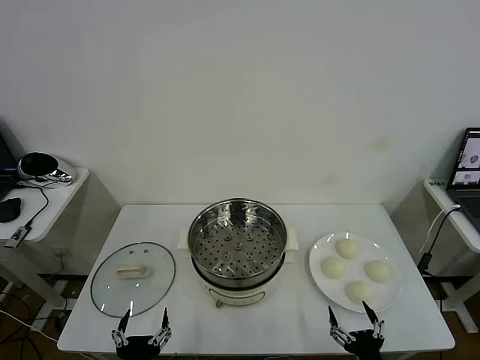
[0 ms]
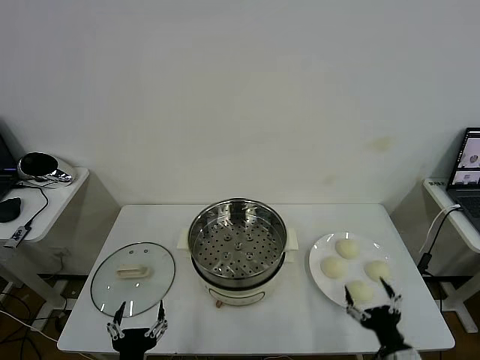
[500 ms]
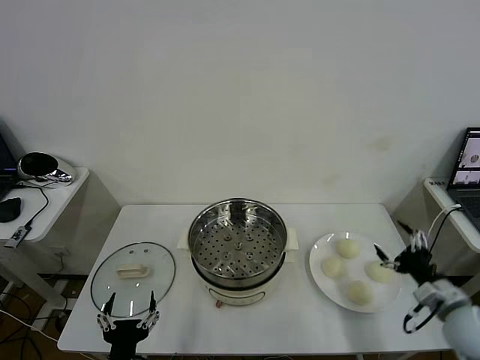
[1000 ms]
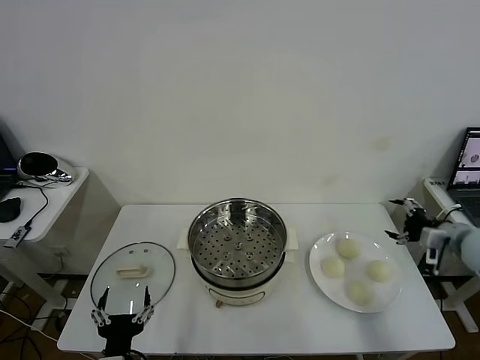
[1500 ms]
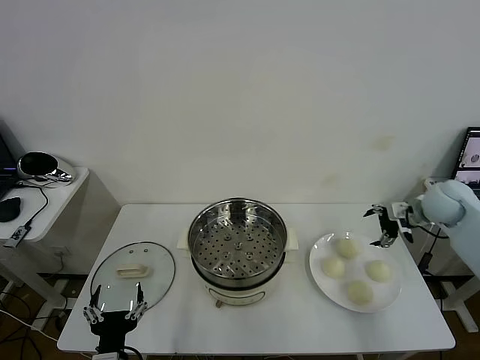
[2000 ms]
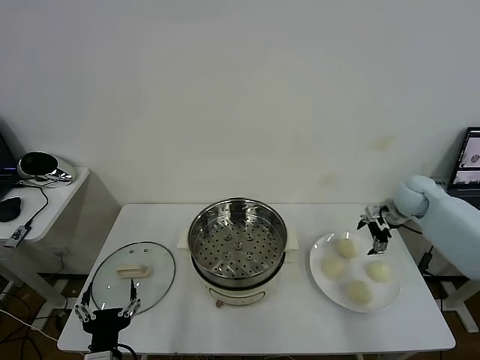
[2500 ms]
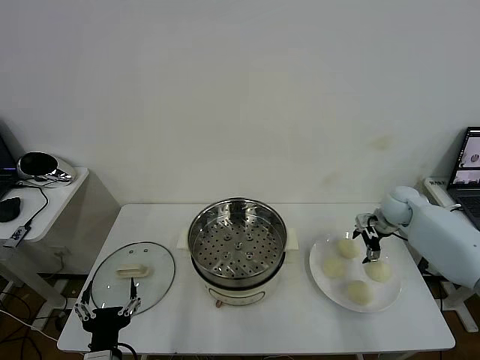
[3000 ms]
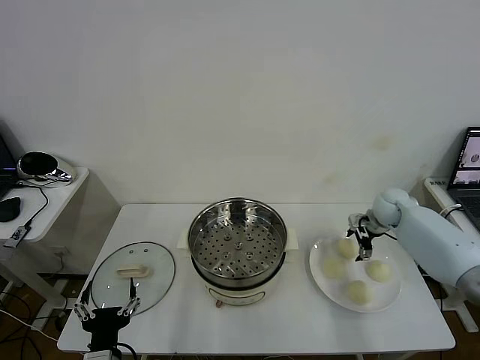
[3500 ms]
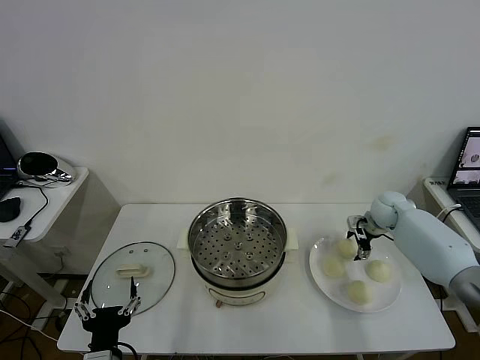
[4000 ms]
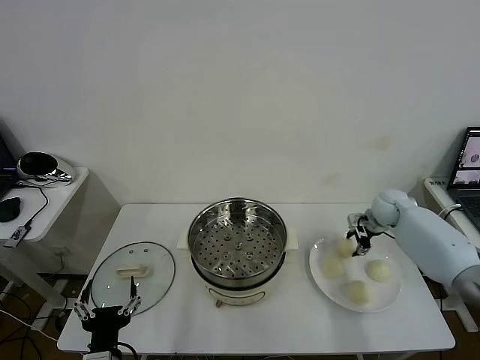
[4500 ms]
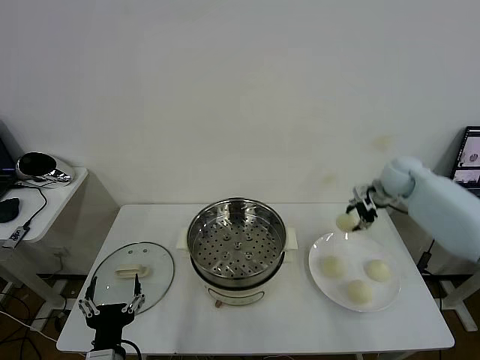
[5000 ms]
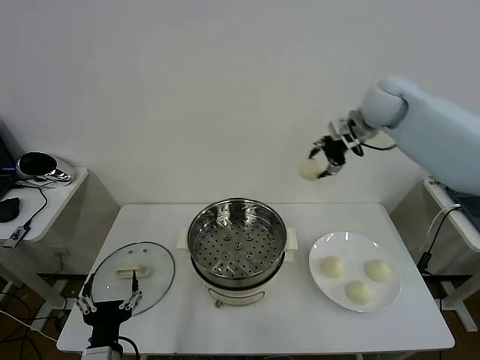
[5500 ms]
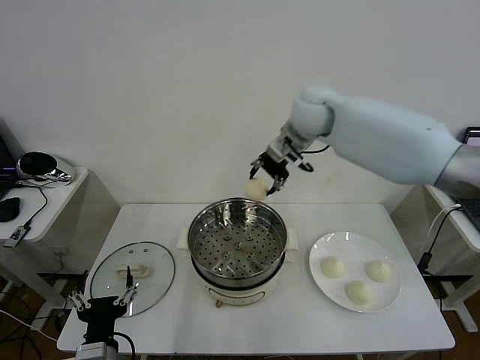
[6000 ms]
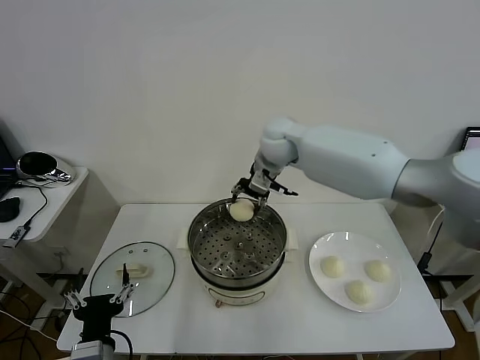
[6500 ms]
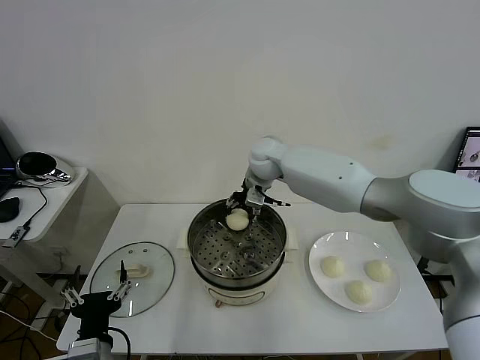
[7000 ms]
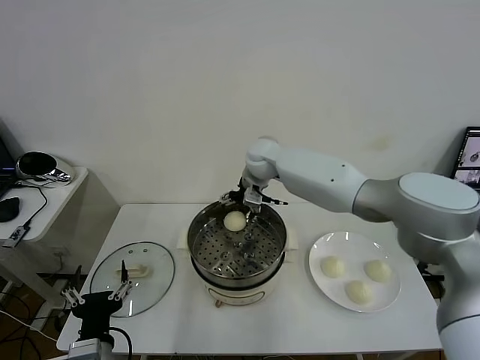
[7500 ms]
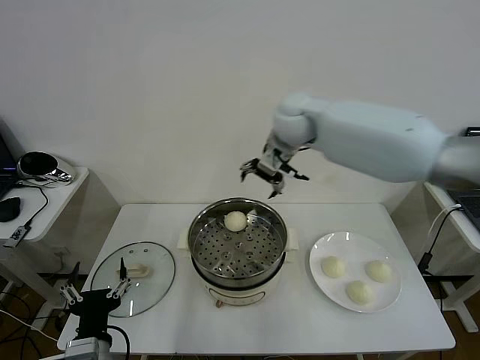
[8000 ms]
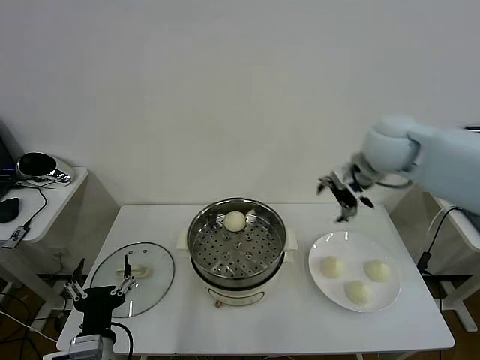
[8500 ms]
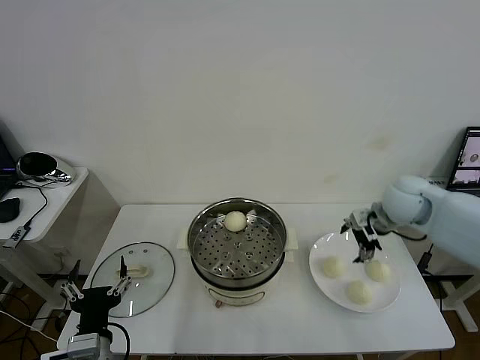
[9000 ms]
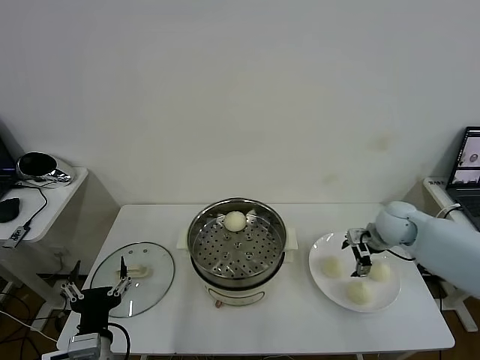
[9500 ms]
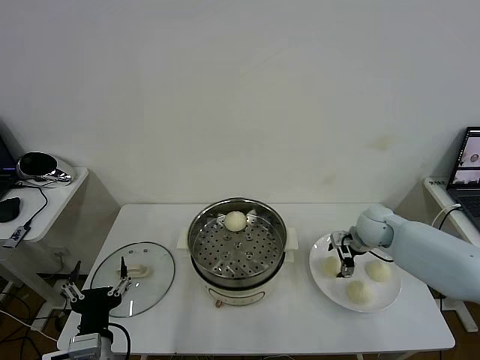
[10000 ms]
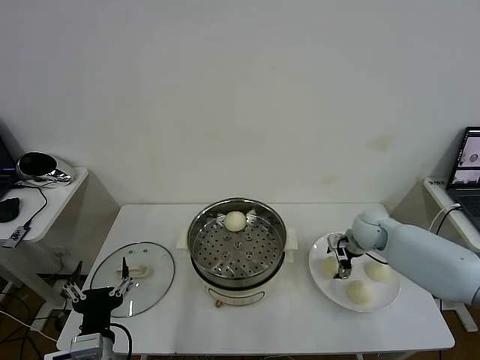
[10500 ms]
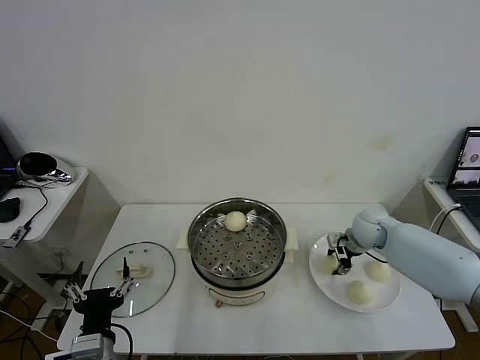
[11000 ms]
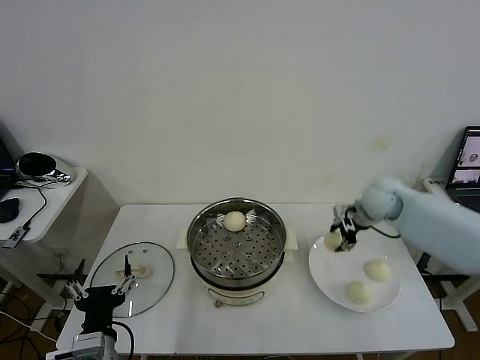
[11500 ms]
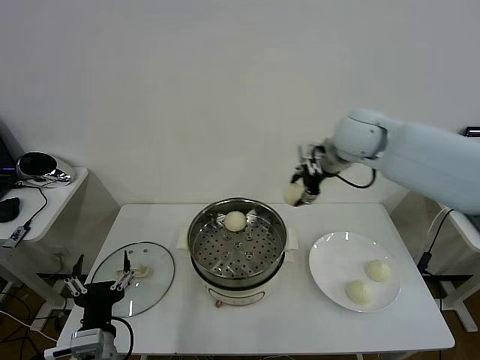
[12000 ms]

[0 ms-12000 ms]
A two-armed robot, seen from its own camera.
Task of the whole recording: take steamed baozi put them in steamer then cover it.
Step, 0 ms to 4500 ms: Grasp the baozi in the plate with right gripper.
Step, 5000 ms to 7500 ms: Place the baozi on the steamer with right gripper.
Step, 8000 ms to 10500 ms: Grasp the baozi in the plate with right gripper.
2000 ms to 4000 ms: The right gripper shifts approximately 10 cm downward and forward.
4000 ms to 6000 ms: The right gripper shifts about 40 cm to the left and upward.
6000 ms to 8000 ms: The right gripper goes downward and returns, roughly 10 cm each way, and opens its fingers.
8000 ms to 10000 ms: The right gripper moves downward and to the right, roughly 35 cm.
10000 ms to 12000 ms: The right gripper travels upward and to the left by about 30 cm, and closes up.

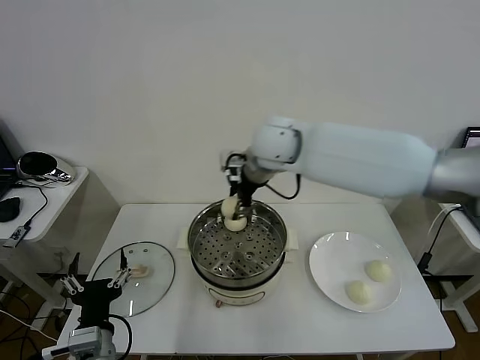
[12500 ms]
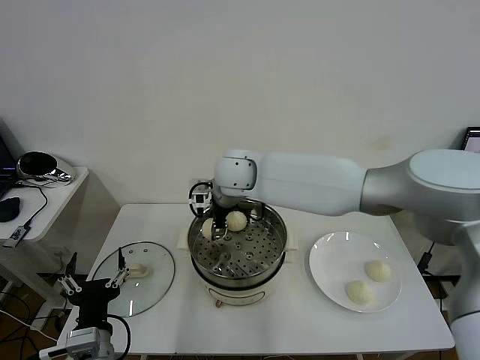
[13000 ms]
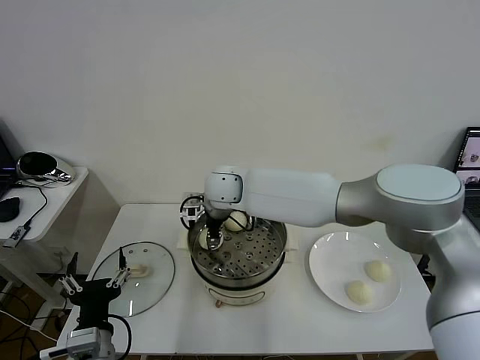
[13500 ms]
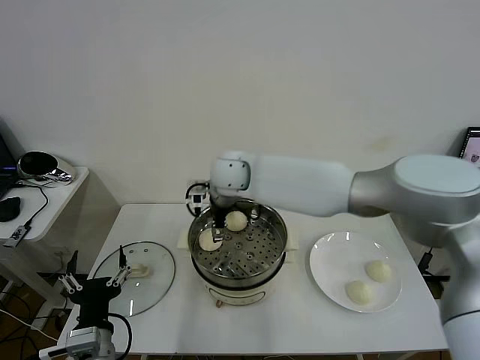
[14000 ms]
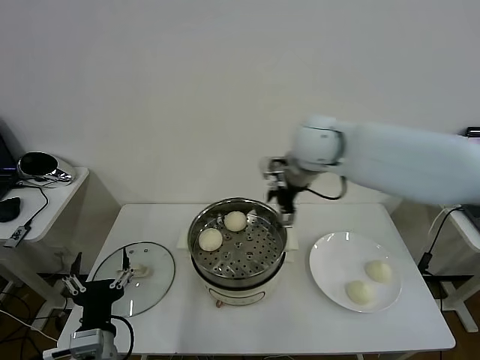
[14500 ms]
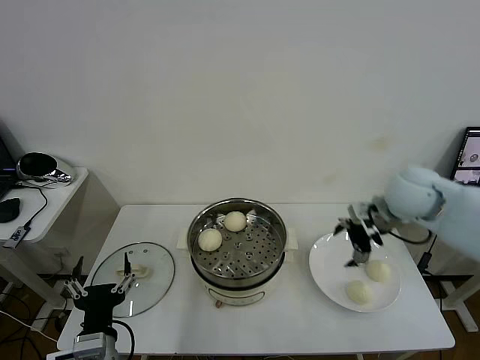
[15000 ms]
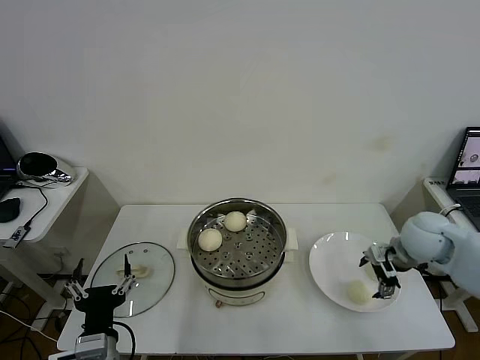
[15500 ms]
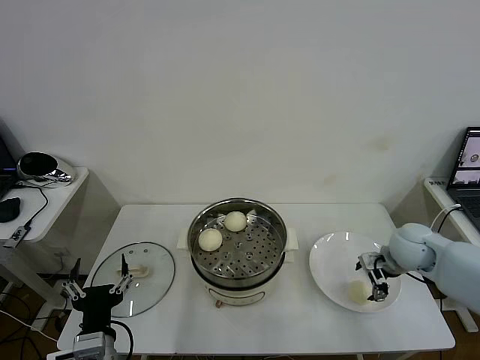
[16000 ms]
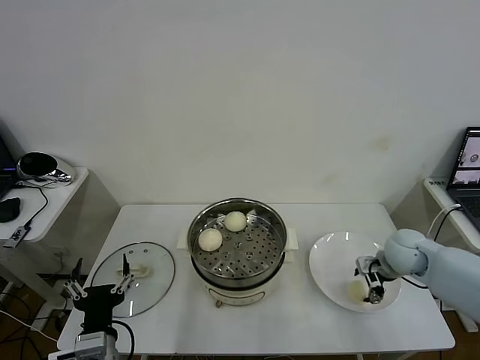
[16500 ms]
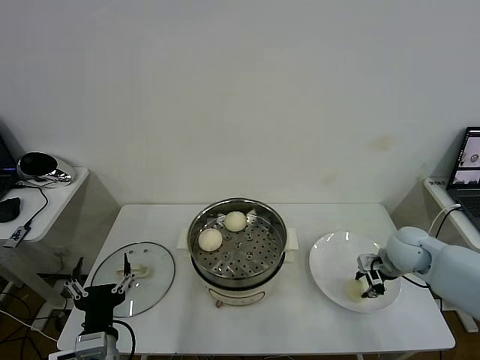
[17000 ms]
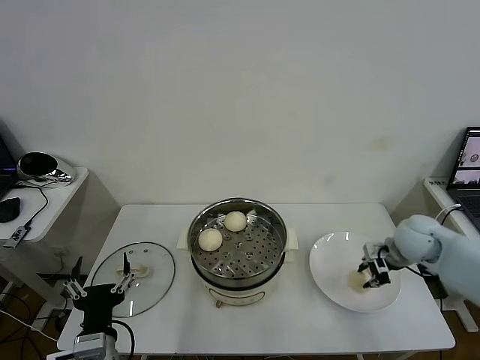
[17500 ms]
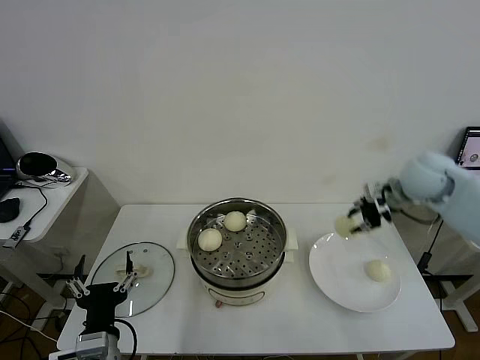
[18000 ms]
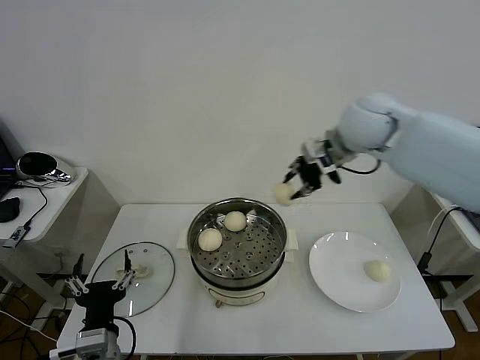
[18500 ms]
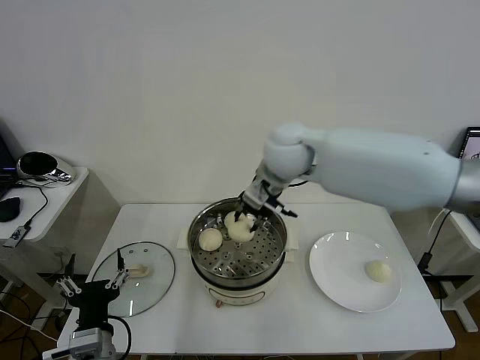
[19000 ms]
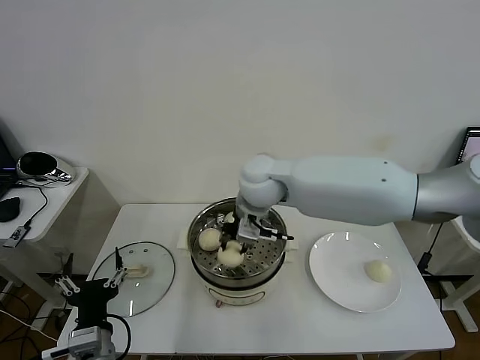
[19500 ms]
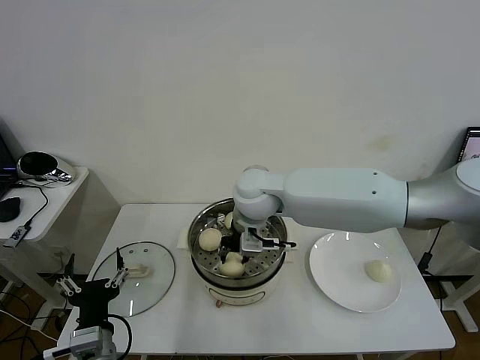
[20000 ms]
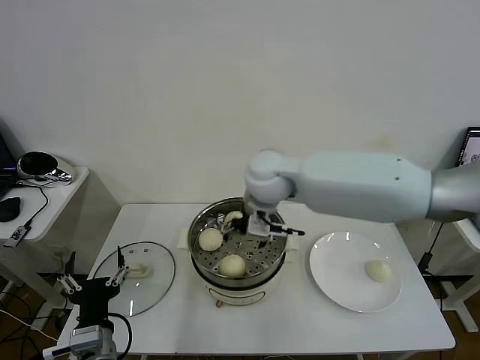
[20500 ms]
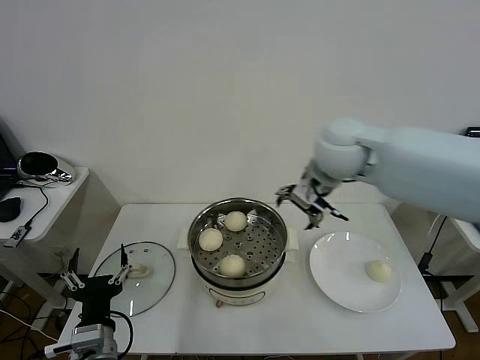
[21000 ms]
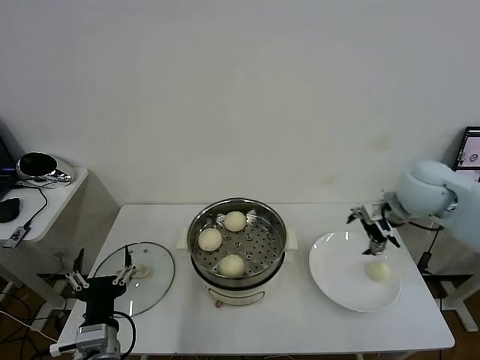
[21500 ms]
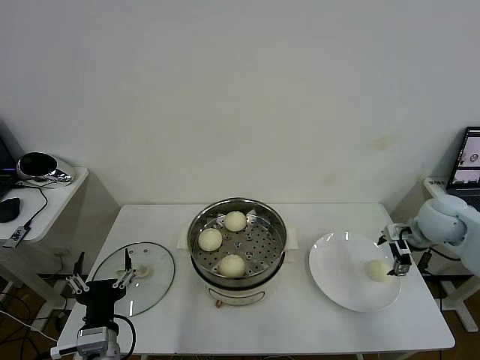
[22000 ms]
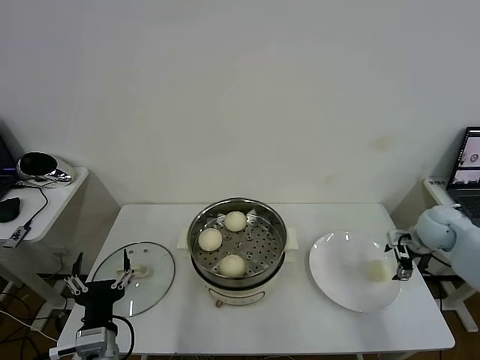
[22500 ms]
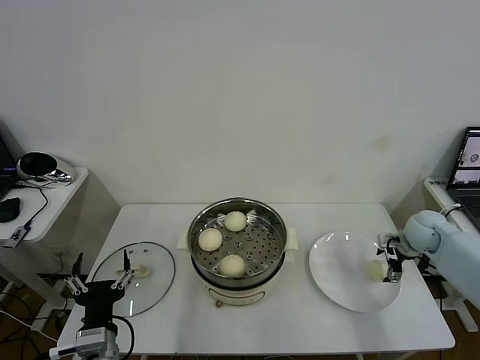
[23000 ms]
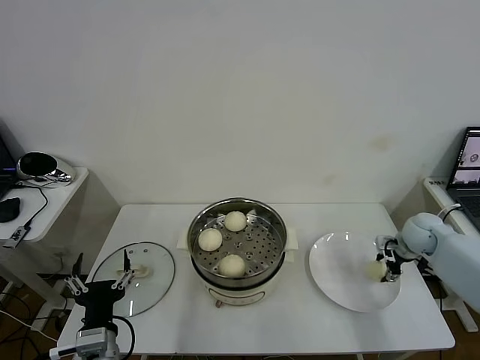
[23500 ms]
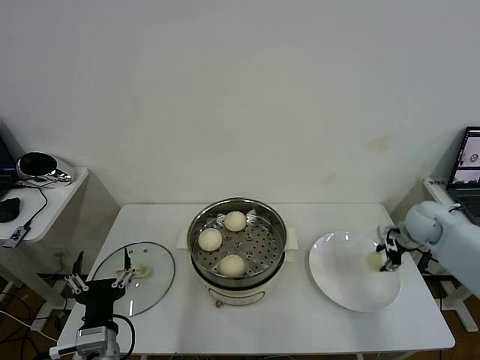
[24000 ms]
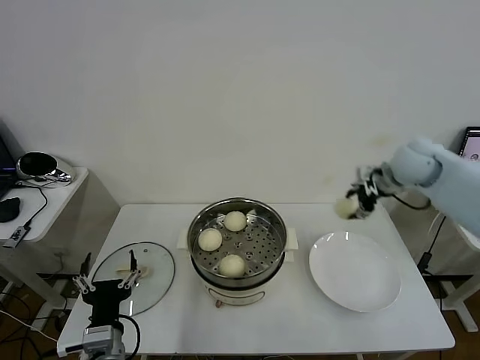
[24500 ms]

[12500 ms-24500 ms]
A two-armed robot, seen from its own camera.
Task of the whole recording: take steamed baozi put them in steamer then cover it.
Step, 14000 ms to 17000 ms: Grasp the baozi in the plate with right gripper.
Step, 17500 ms to 20000 ms: Place the baozi on the steamer with right gripper.
Step, 20500 ms to 23500 ms: Grasp the baozi in the plate with right gripper.
12500 ms to 14500 ms: The right gripper travels to the right by approximately 10 cm, and opens.
14500 ms to 16500 ms: The right gripper is displaced downward and to the right by about 30 cm.
16500 ms to 18500 ms: The right gripper shifts roughly 30 cm upward and to the left, and closes.
18500 ms to 20500 ms: The right gripper is displaced to the left and downward by some 15 cm, and opens up.
20500 ms to 22500 ms: The right gripper goes roughly 40 cm to the right.
22500 ms to 24500 ms: The right gripper heads upward and to the left, covering some 20 cm, and closes.

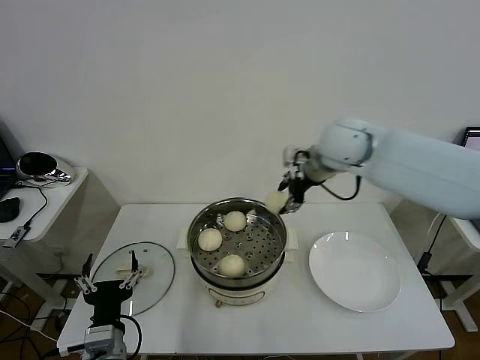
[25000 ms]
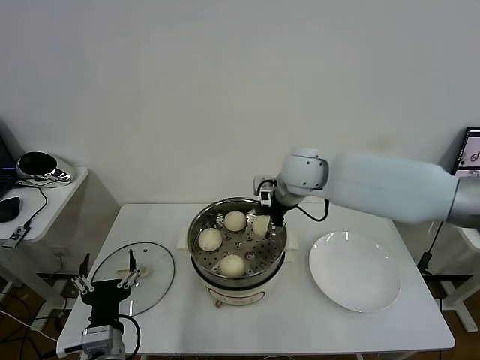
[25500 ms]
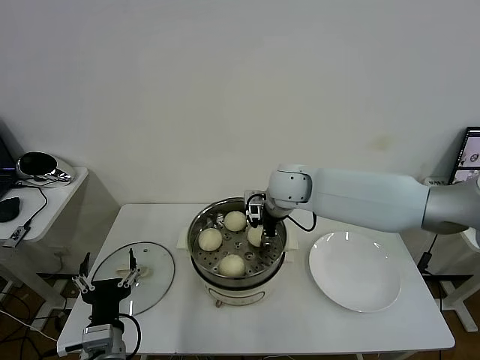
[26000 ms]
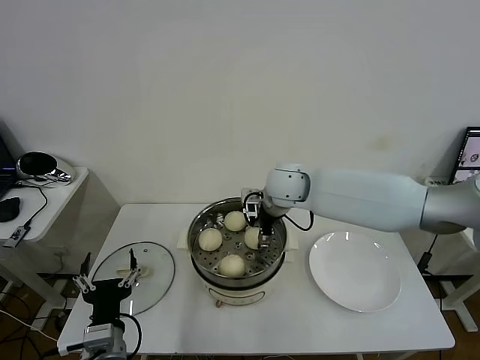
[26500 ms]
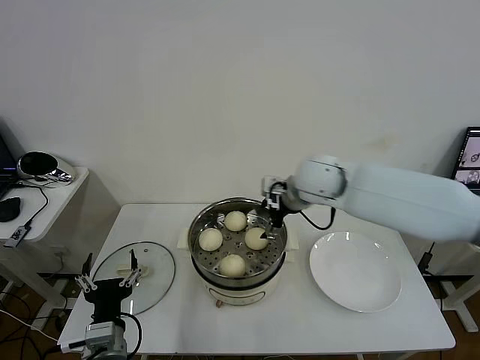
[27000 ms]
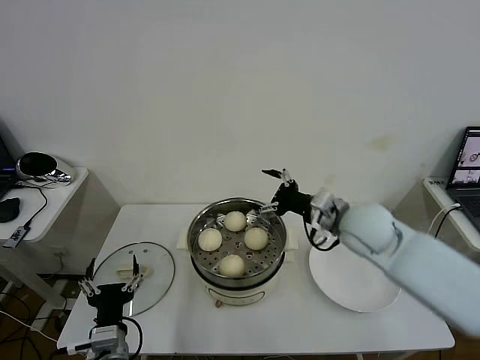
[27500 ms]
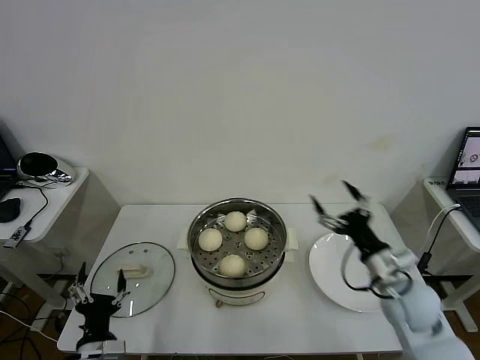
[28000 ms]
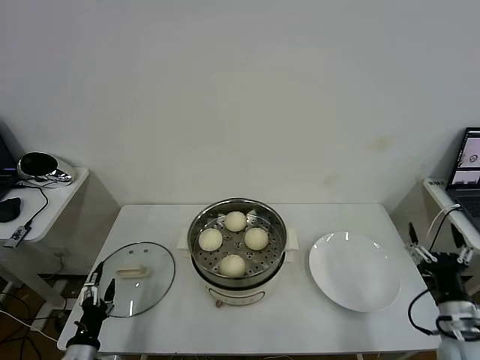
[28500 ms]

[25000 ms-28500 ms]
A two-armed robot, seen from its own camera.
Task of the whole recording: take steamed baozi put them in steamer then cover it.
Step, 25000 ms to 26500 ms: Place the baozi on the steamer with right gripper.
25000 ms to 27000 ms: The right gripper is displaced downward by roughly 5 cm, and opens.
27000 ms to 28500 ms: The right gripper heads backward, to the right and downward, covering roughly 40 cm. The left gripper travels to the left and downward by about 15 cm.
